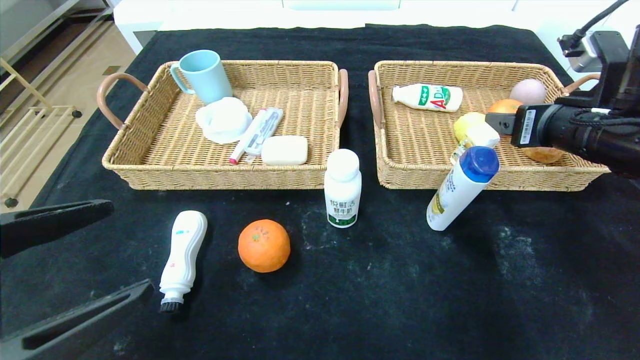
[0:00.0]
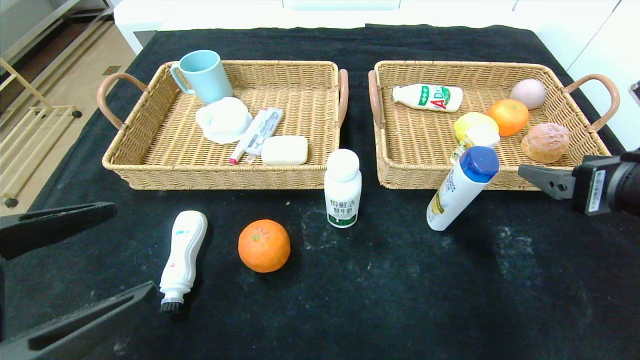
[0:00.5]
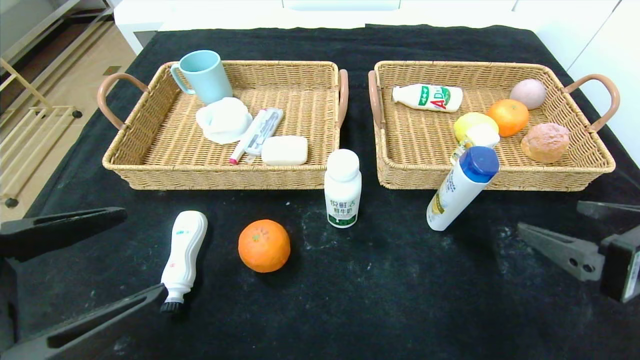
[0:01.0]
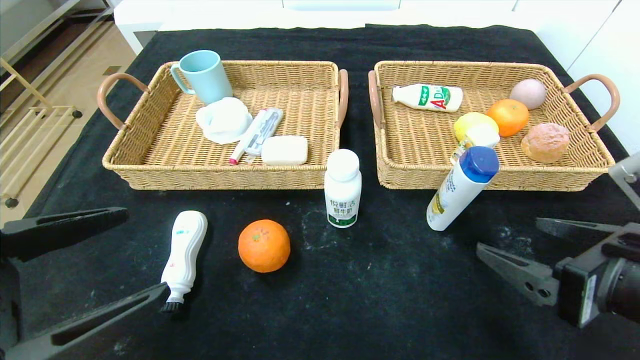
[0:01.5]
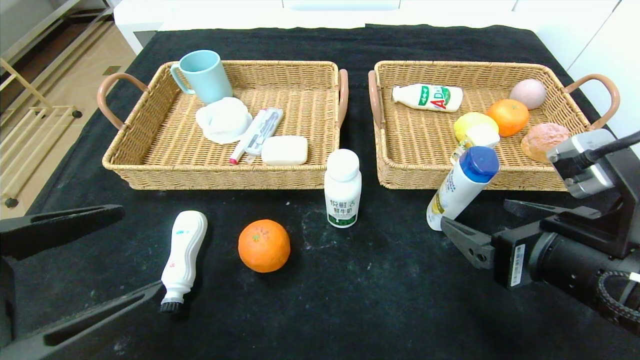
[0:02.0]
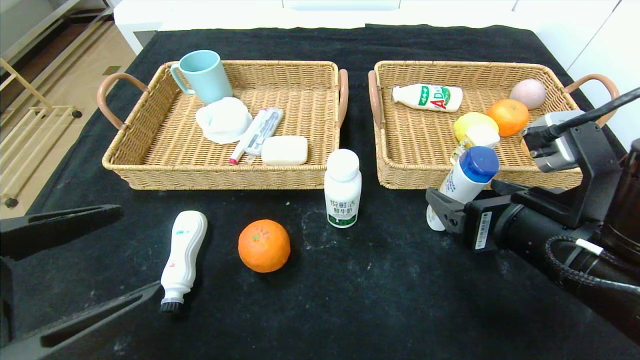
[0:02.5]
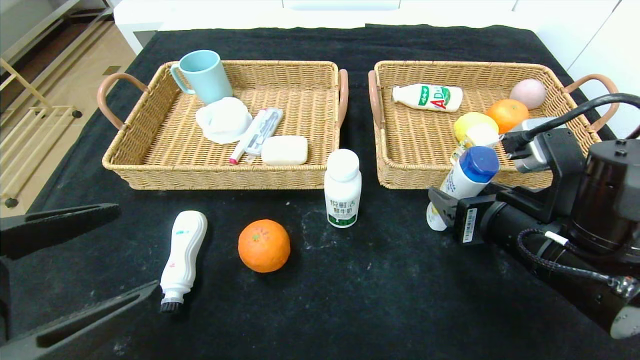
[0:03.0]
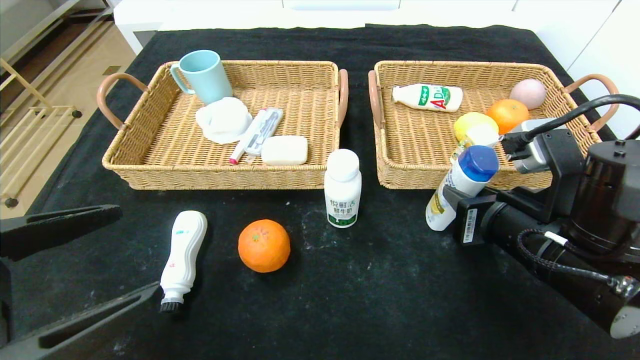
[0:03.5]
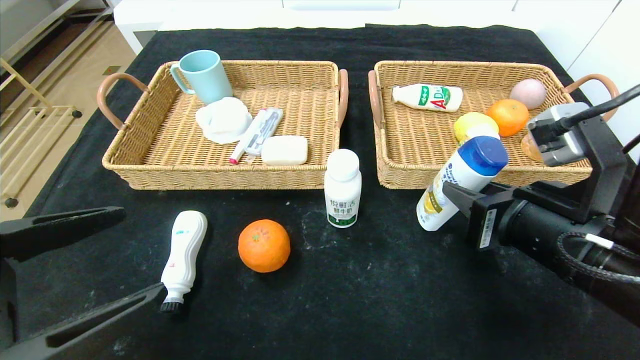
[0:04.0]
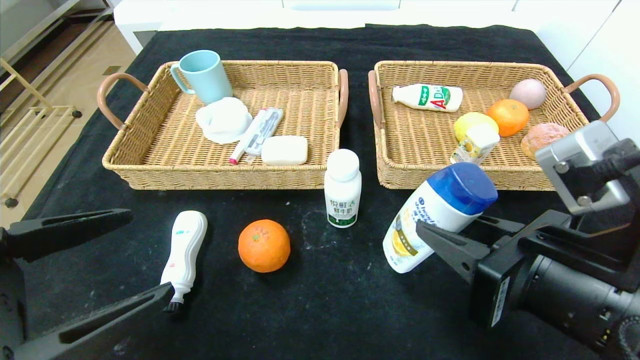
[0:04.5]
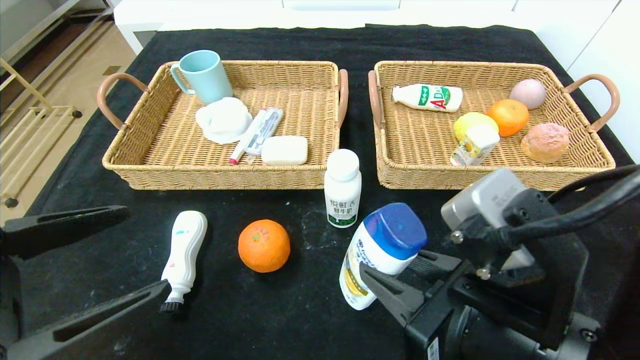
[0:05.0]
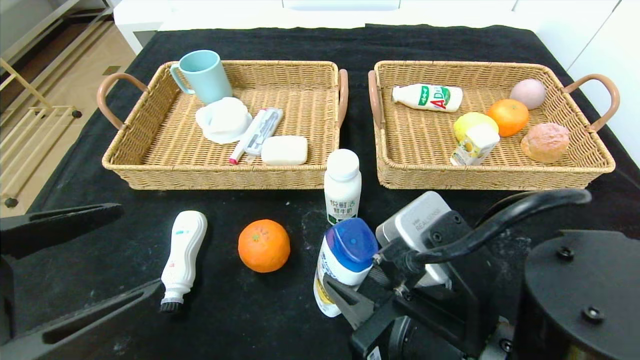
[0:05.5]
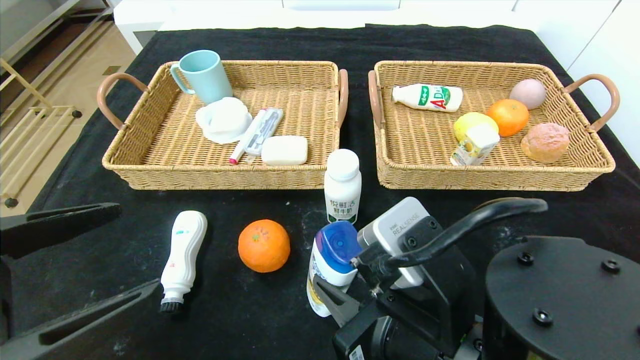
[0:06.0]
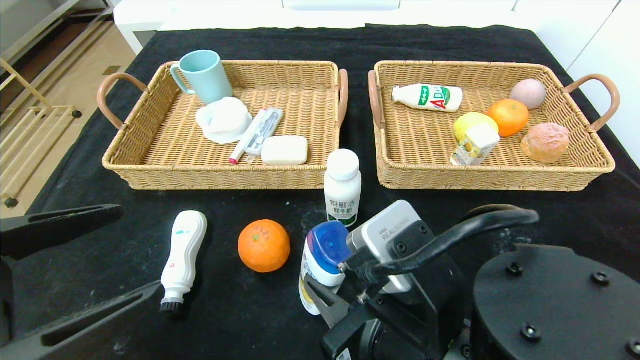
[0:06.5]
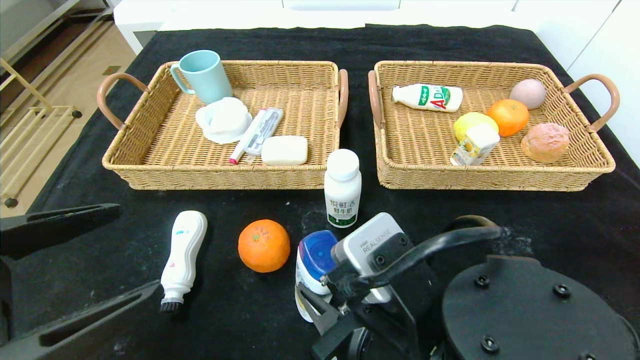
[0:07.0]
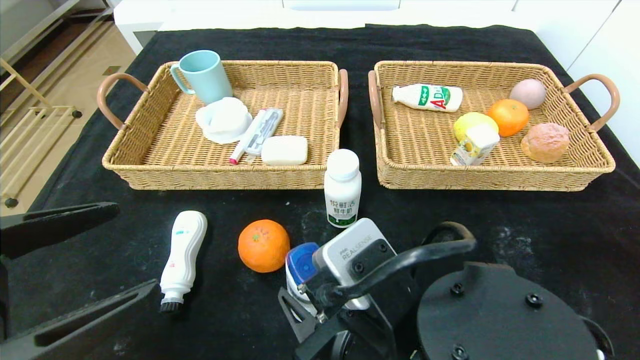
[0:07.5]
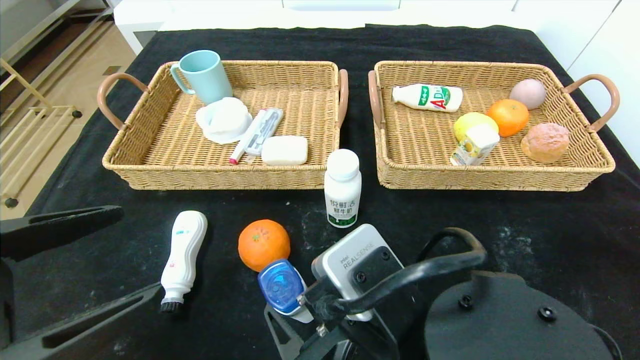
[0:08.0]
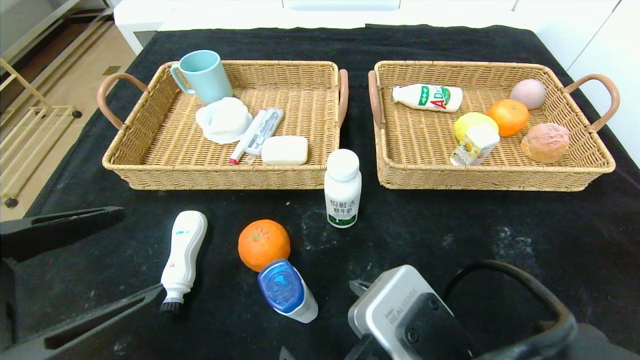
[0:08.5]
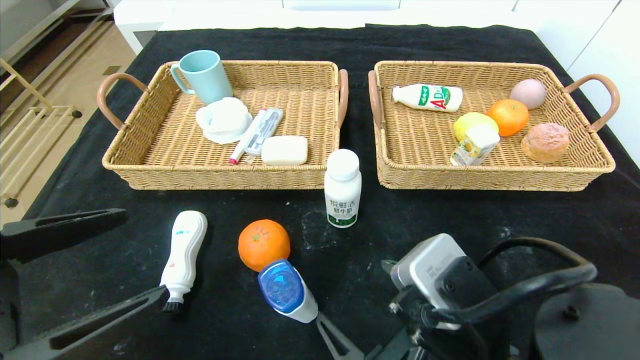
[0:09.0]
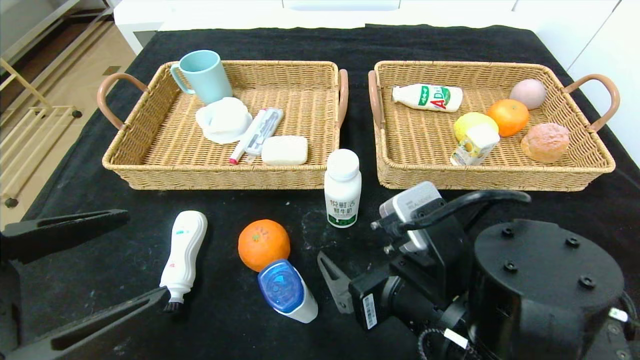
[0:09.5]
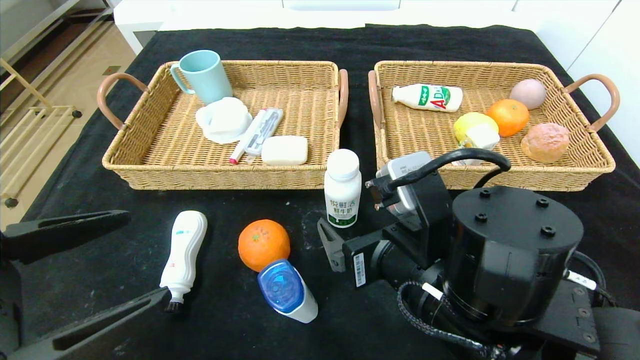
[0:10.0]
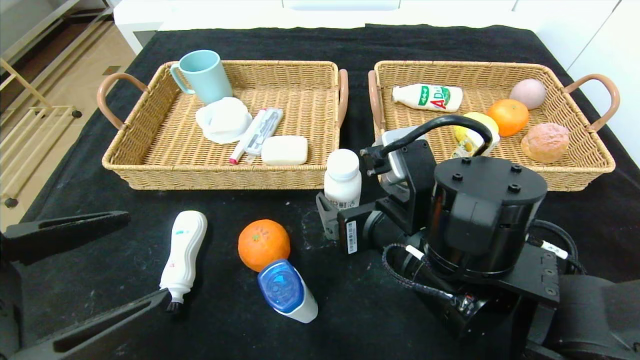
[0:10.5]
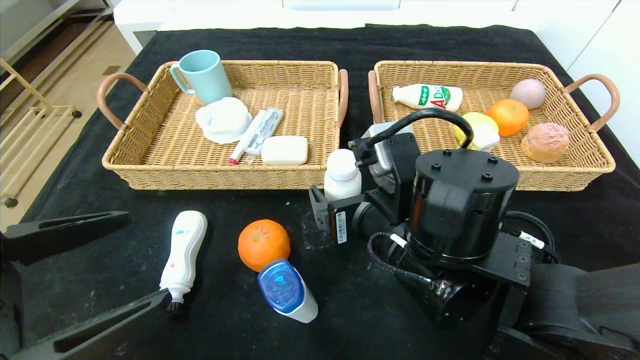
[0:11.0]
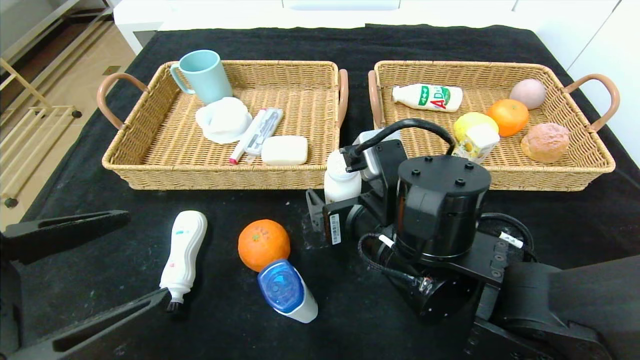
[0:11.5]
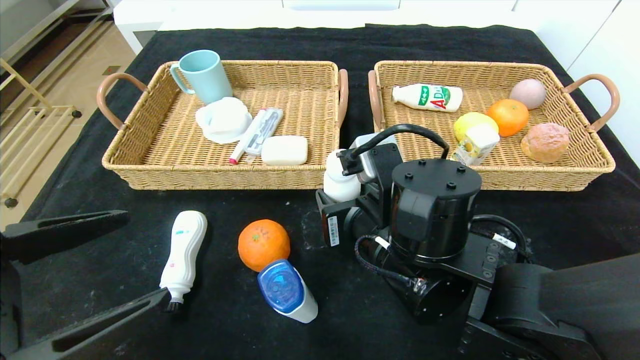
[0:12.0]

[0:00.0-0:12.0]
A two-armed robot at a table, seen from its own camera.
Step, 0:00.0 to 0:08.5: Place the shampoo in the center of the table.
0:00.0 to 0:02.0: The right gripper is displaced backward, to the left and downward by some 15 cm.
0:02.0 to 0:04.0: The right gripper closes its fingers.
0:04.0 to 0:06.0: The right gripper is displaced to the left and backward by about 10 cm.
0:06.0 to 0:08.0: The right gripper opens up.
0:08.0 to 0:10.0: The right gripper moves forward, about 5 cm.
0:10.0 to 0:12.0: The right gripper changes place by roughly 5 cm, and closes its fingers.

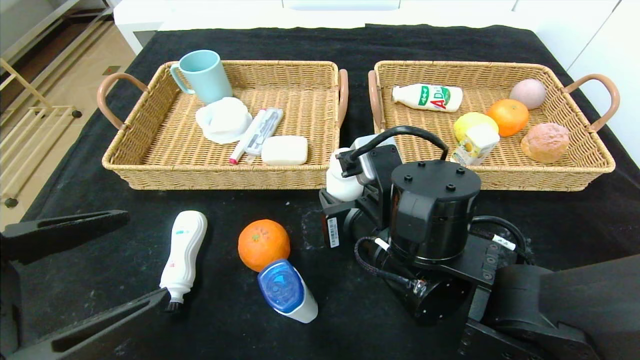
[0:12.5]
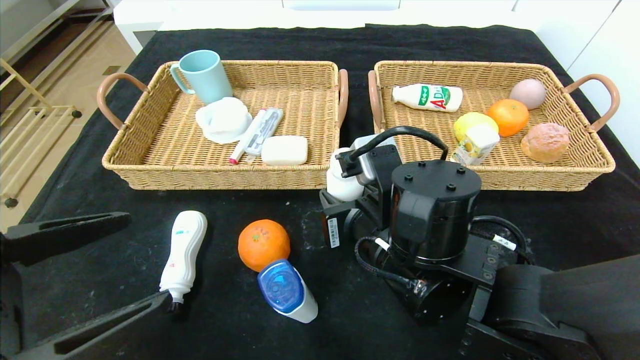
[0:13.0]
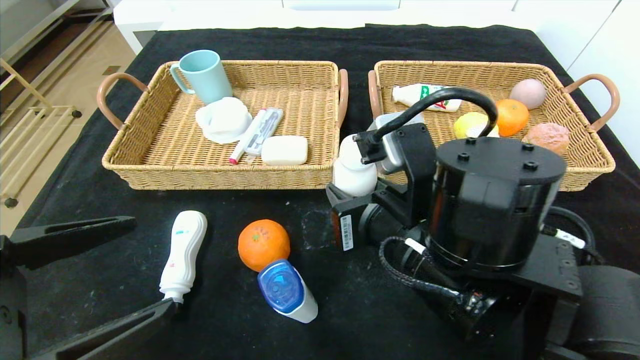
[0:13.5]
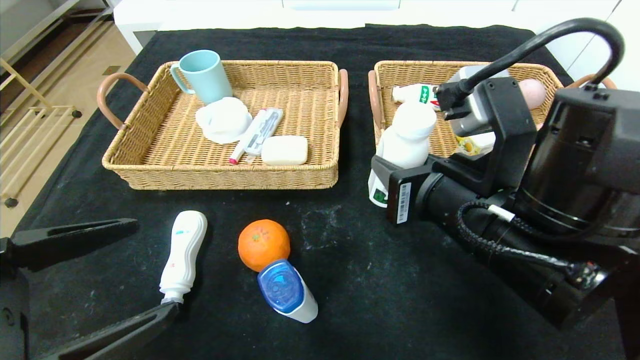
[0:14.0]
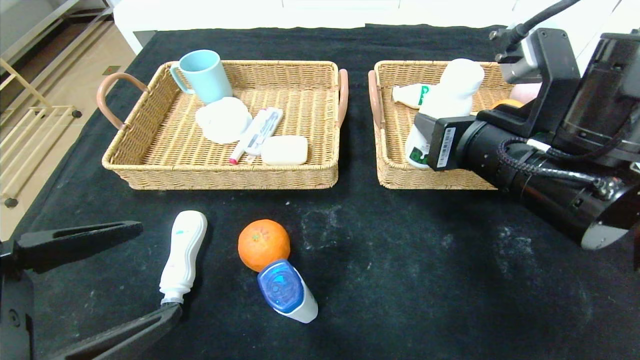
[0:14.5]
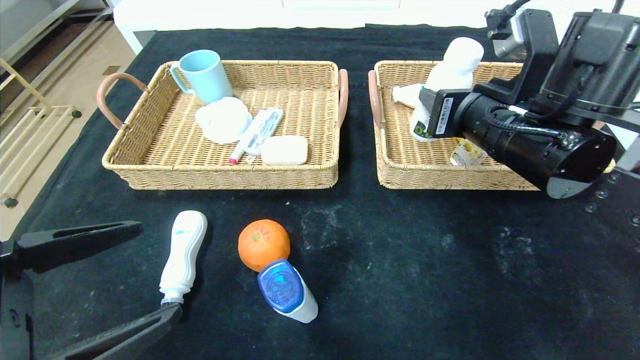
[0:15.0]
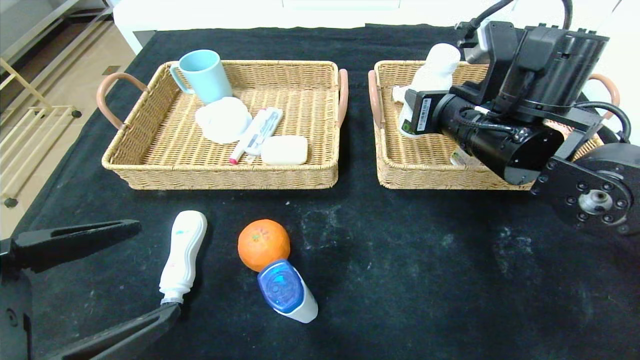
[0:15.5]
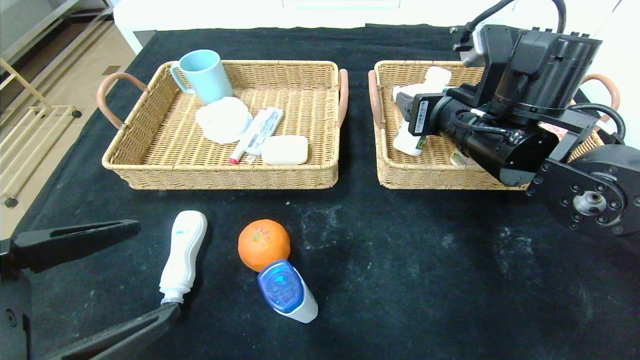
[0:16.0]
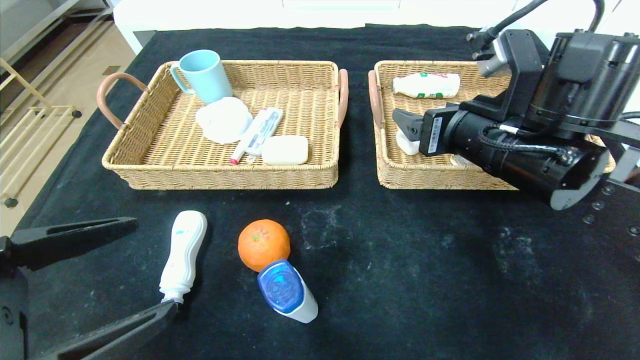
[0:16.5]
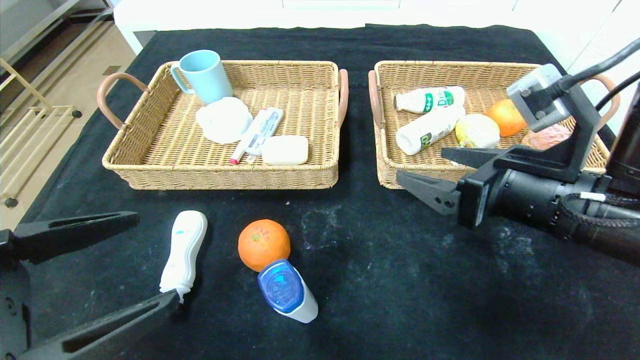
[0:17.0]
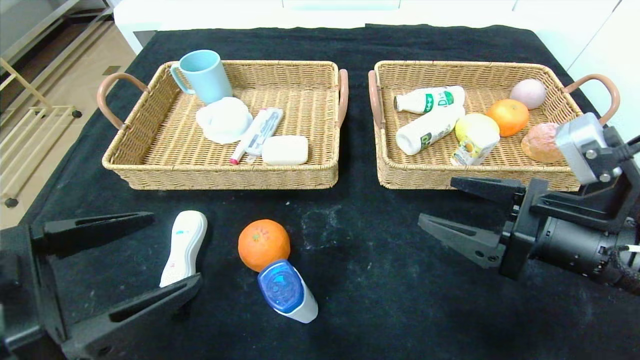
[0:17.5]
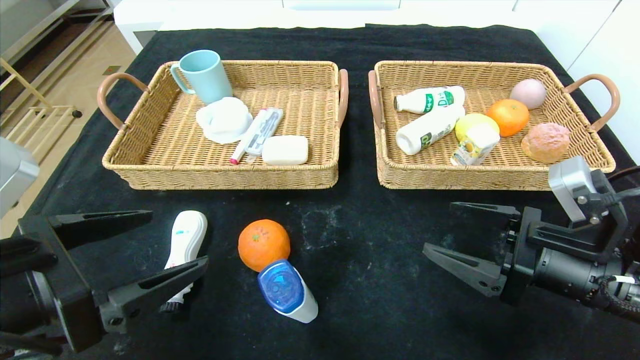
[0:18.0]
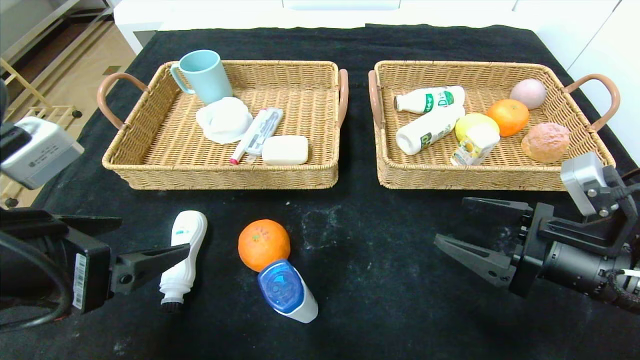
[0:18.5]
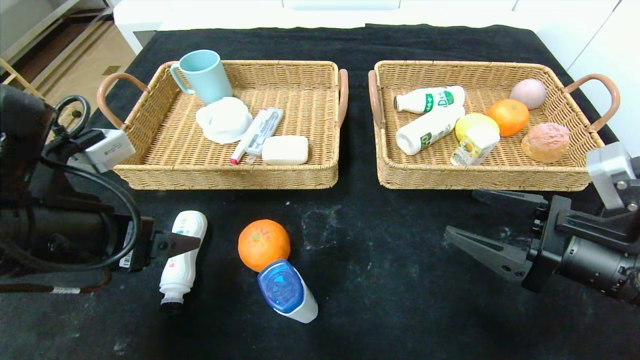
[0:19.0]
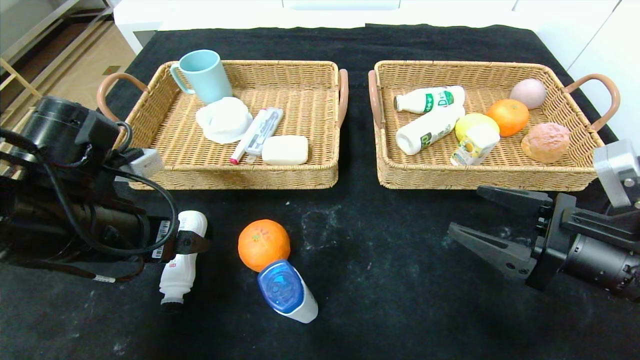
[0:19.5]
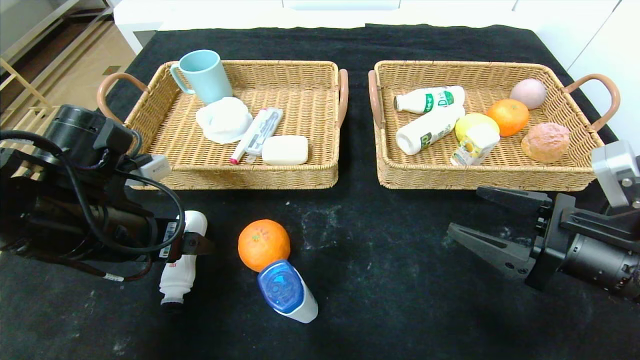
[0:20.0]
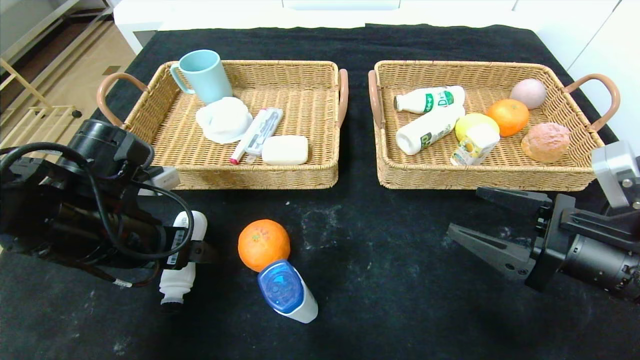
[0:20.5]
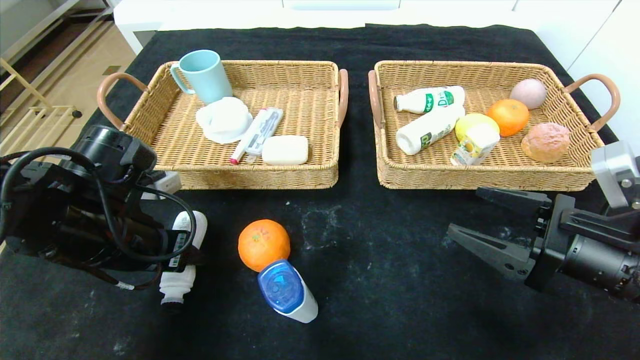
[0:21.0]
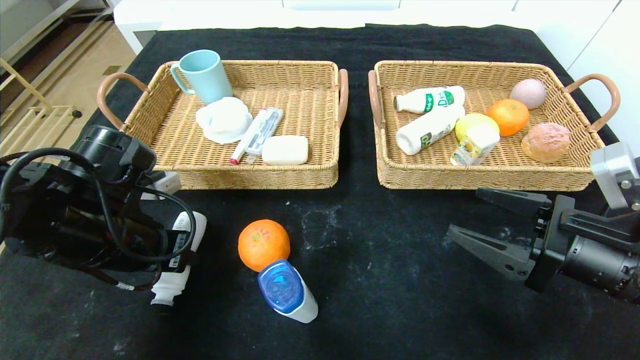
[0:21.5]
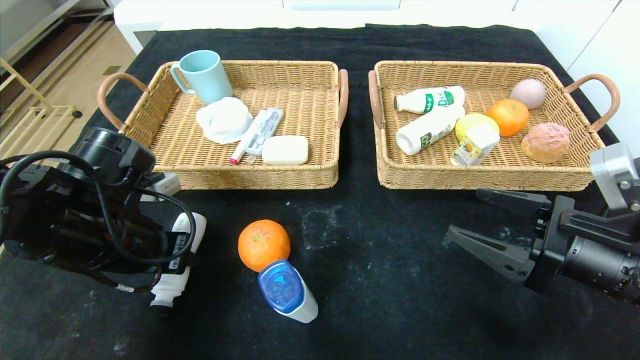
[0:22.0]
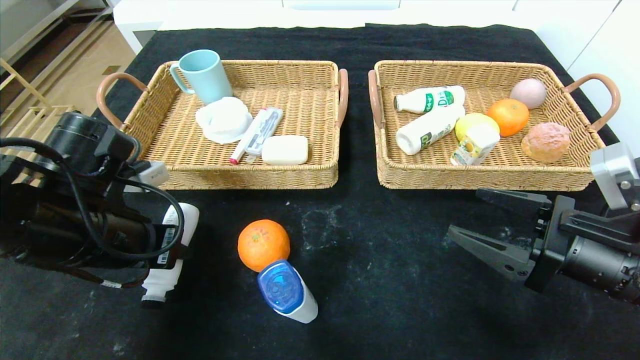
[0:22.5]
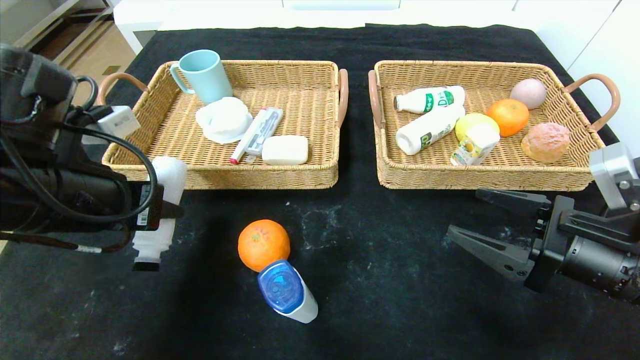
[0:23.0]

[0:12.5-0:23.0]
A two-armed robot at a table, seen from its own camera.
Step, 0:12.5 to 0:16.5: Grasp the milk and put it in the right basket.
0:12.5 to 0:14.5: The right gripper travels to the right and upward by approximately 15 cm.
0:14.5 to 0:16.5: The right gripper opens its fingers.
0:16.5 to 0:19.0: The right gripper goes roughly 15 cm to the right, downward and backward; the left gripper goes roughly 10 cm forward.
0:19.0 to 0:21.0: The left gripper travels forward and downward by some 10 cm, and closes its fingers.
0:21.0 to 0:23.0: The left gripper shifts roughly 5 cm upward, and closes its fingers.
